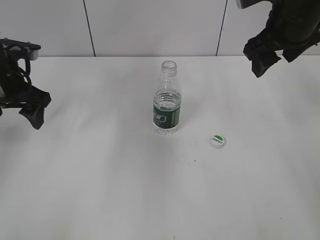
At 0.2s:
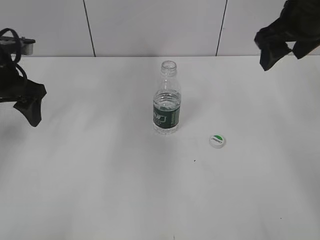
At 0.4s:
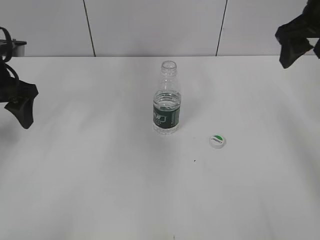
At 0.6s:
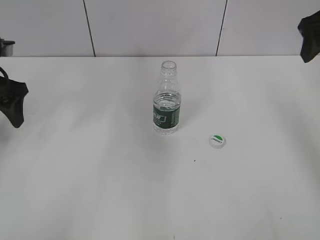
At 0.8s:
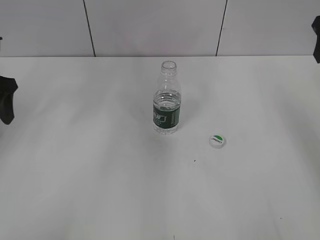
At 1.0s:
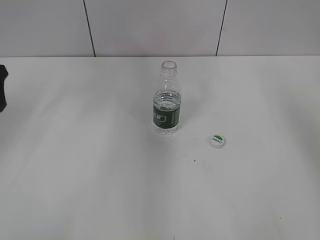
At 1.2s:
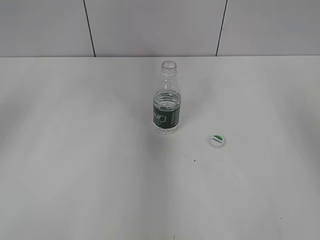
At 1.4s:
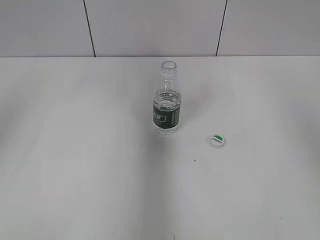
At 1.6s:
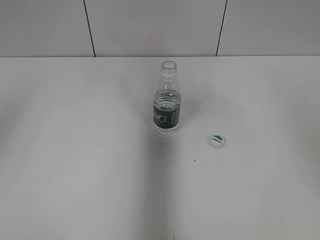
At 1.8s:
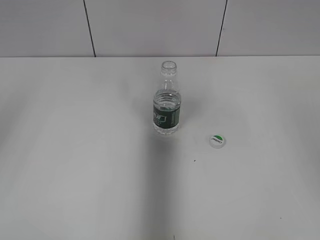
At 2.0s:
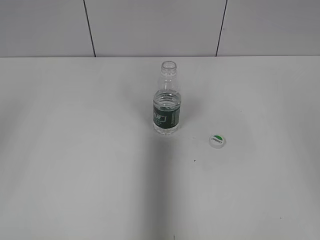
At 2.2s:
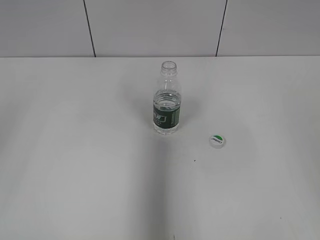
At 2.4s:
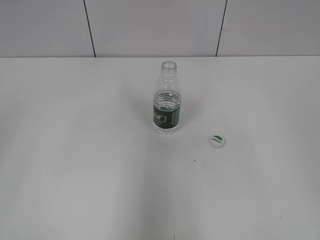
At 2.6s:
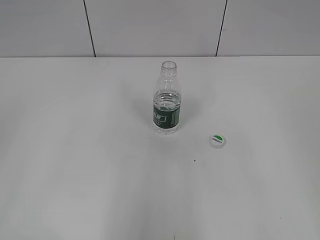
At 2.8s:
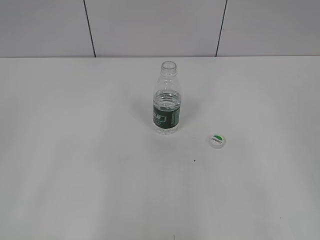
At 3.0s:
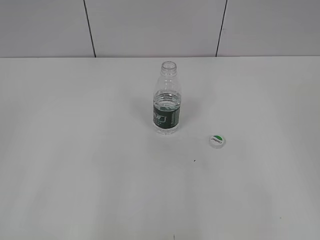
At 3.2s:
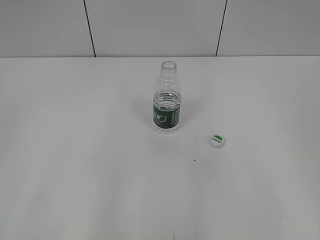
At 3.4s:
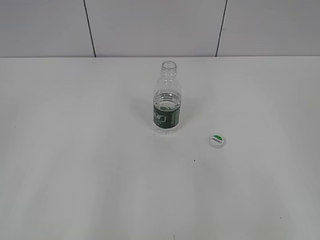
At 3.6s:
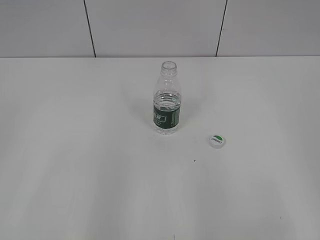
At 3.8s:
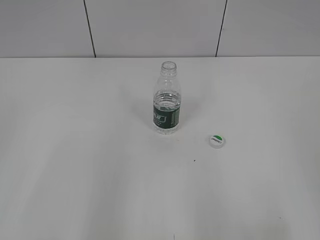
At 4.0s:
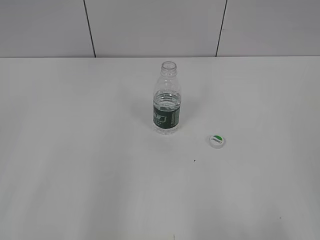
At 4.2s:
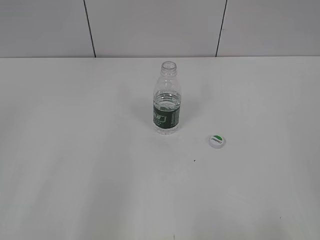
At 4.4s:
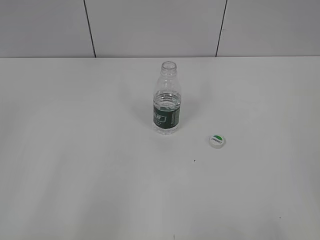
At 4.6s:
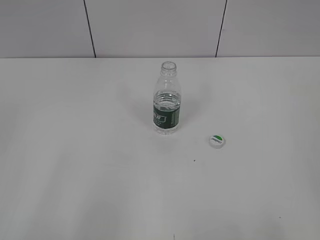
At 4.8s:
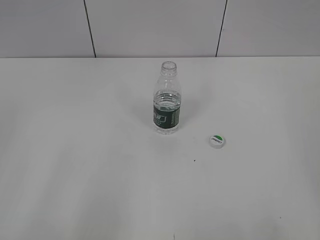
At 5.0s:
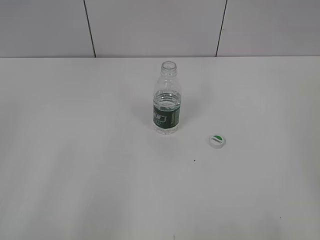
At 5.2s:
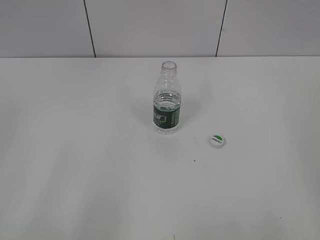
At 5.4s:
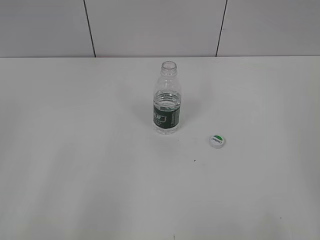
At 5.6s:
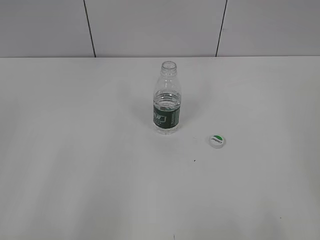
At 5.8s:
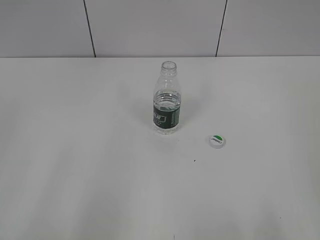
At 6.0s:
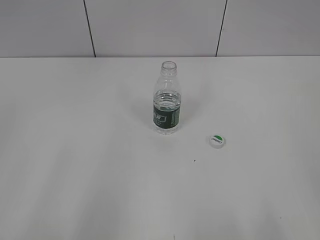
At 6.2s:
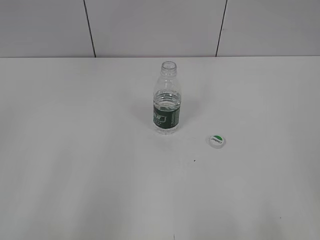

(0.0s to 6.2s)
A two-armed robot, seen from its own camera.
0.0s - 1.6s: The left gripper shifts about 20 cm upward and backward. The right gripper heads backward and to the right, covering about 15 cm.
1.6s - 3.2s: Both grippers travel together backward, some 20 cm.
4.6s - 6.2s: Both grippers stay about where they are.

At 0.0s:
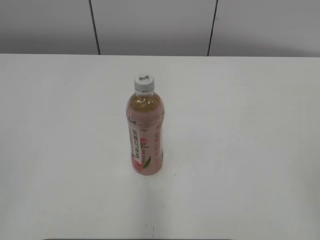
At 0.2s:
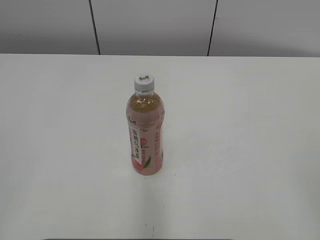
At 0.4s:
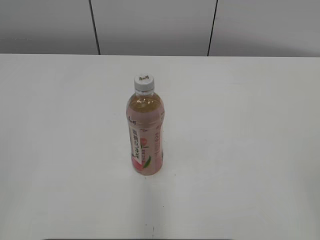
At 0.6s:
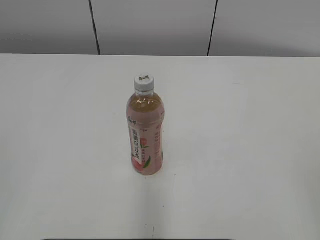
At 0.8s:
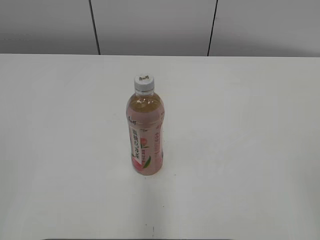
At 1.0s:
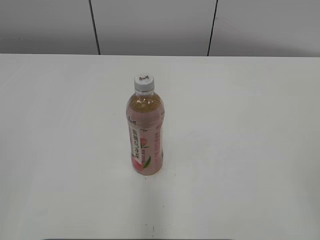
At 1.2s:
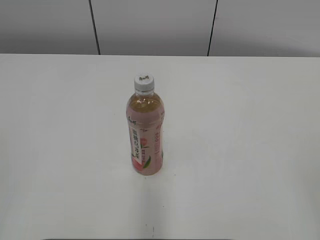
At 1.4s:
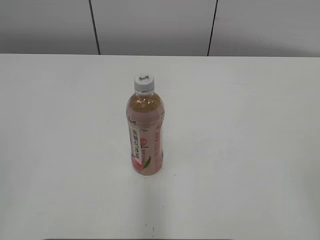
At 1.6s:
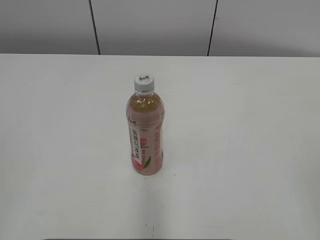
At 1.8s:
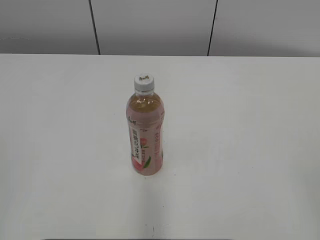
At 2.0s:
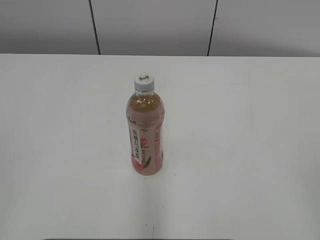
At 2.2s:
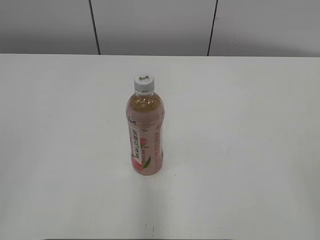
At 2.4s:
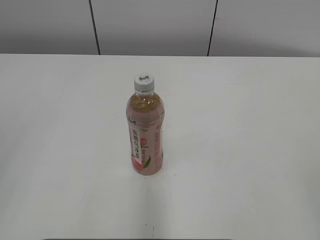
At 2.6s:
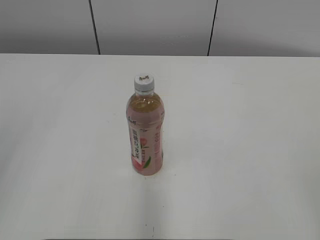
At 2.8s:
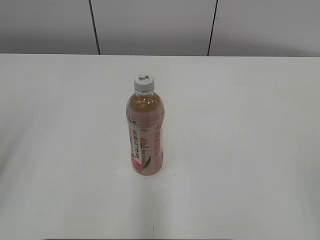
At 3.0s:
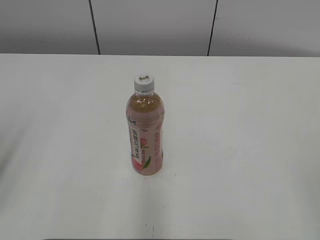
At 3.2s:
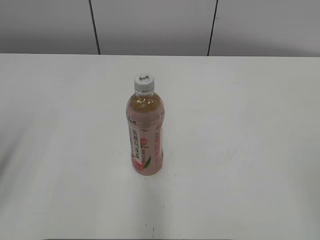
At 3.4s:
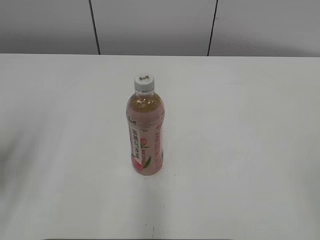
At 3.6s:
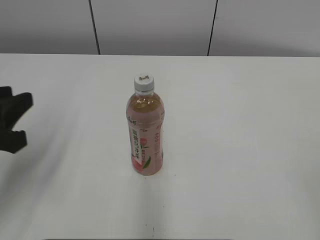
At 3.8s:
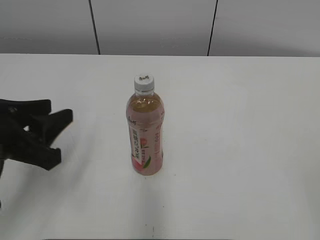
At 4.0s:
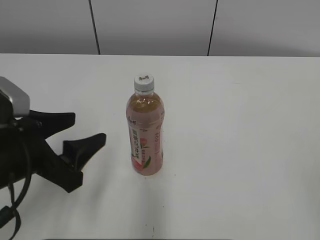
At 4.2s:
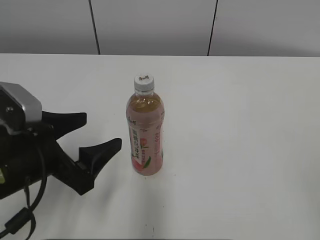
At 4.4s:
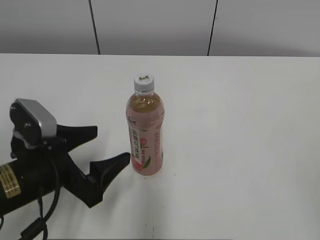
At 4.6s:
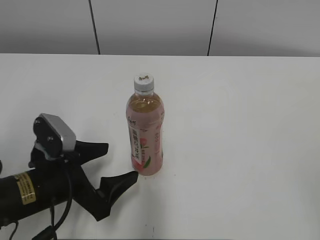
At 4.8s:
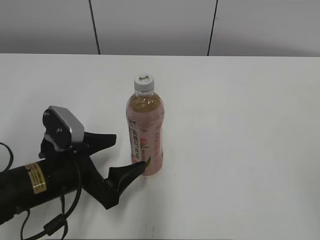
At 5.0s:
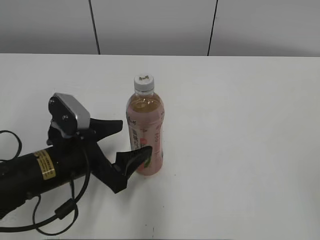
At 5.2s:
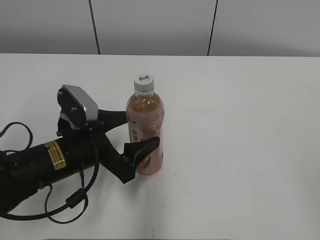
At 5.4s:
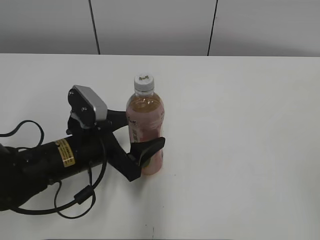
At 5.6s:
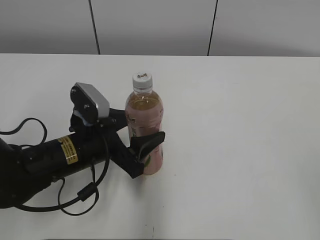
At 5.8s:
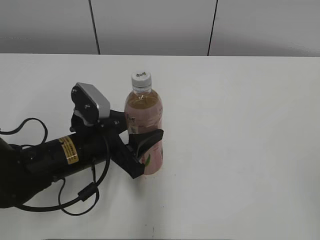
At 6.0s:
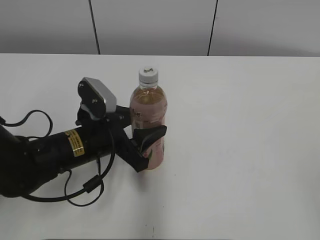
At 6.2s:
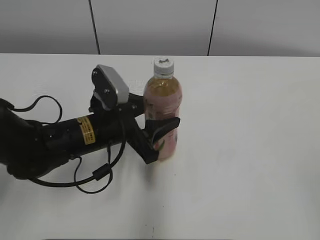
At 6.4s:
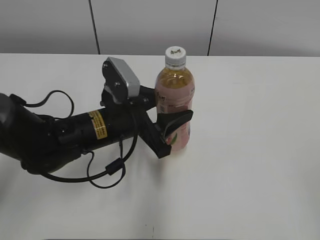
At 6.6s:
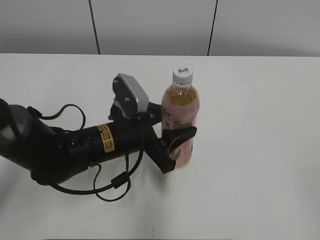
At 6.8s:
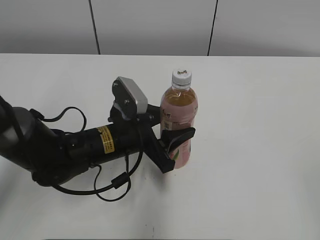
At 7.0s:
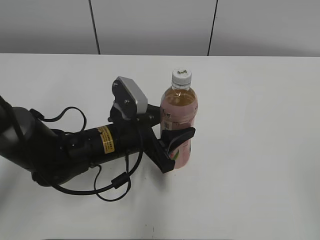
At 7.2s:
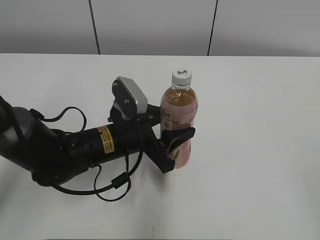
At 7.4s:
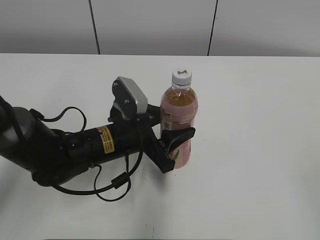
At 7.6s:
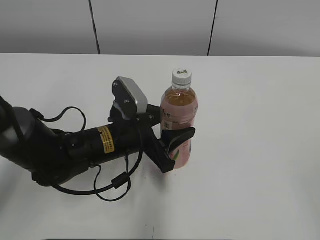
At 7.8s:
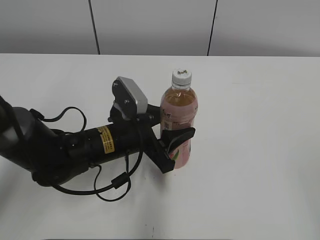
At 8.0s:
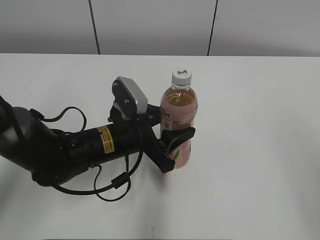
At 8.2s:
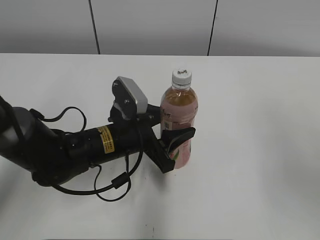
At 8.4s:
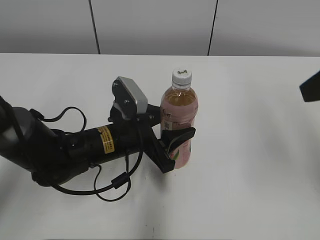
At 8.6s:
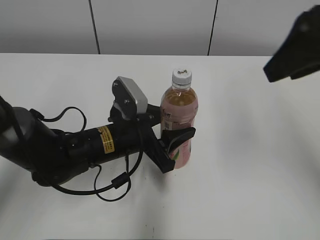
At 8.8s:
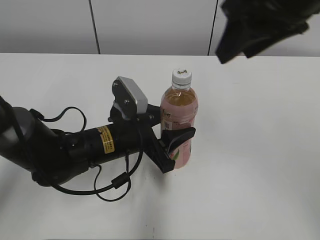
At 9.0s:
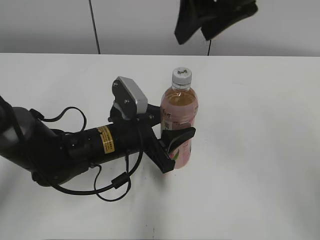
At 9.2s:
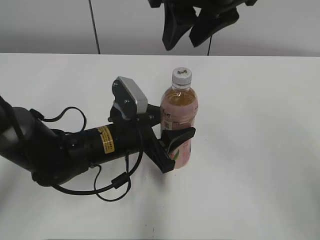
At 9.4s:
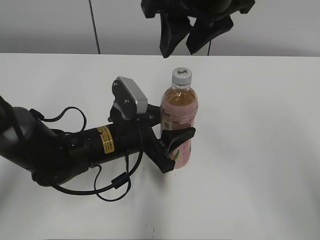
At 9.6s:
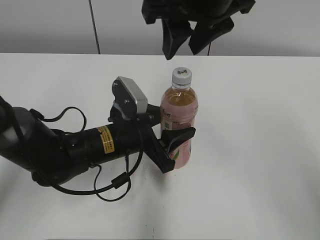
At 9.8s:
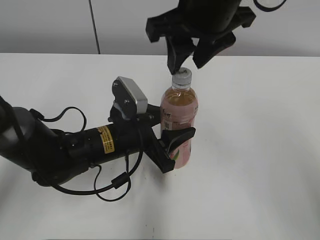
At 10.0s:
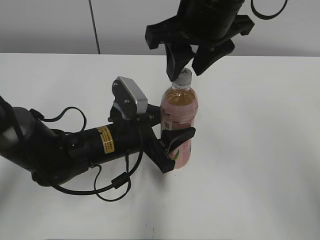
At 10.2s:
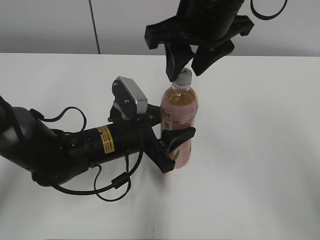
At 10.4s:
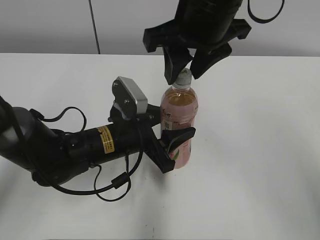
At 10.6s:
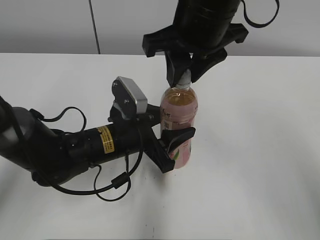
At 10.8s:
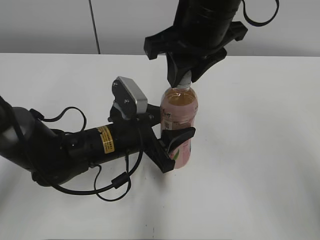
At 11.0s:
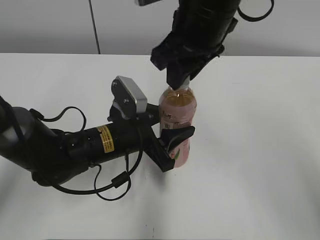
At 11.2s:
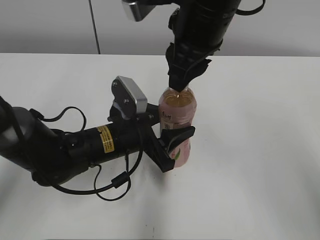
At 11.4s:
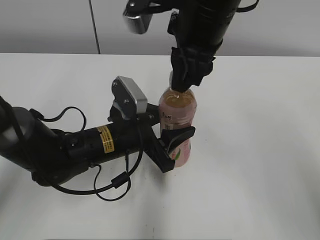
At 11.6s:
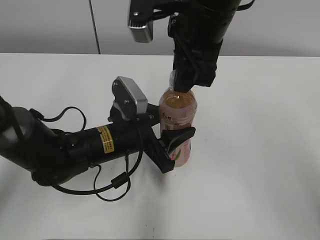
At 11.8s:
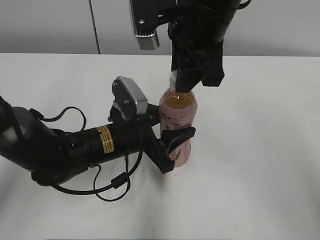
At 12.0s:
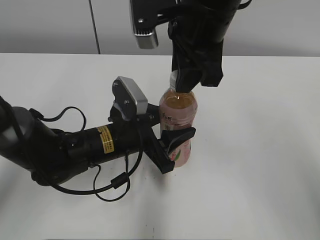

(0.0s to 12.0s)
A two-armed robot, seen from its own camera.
Step, 0.0s - 5.6s: Grab the Peach Oolong Tea with the left hand.
Step, 5.8s - 6.8s: Move the Peach Oolong Tea from left to right.
3.0s - 4.4s: The left gripper is displaced downward, to the right and forward by approximately 20 cm, and opens up.
4.4s - 6.0s: The left gripper travels forward and to the right by some 10 cm, and closes its fingers.
6.0s - 7.6s: The grippers make only small movements.
7.6s - 9.0s: The right gripper heads forward and to the left, covering roughly 35 cm, and closes up.
9.0s - 10.4s: The right gripper travels downward by approximately 5 cm.
10.4s - 12.0s: The right gripper closes its fingers.

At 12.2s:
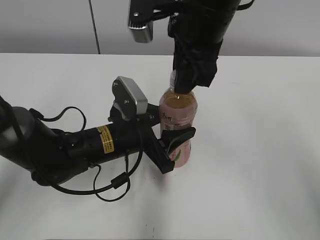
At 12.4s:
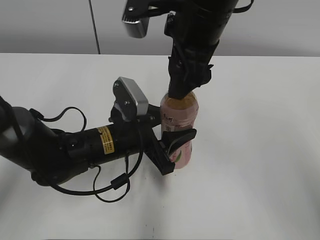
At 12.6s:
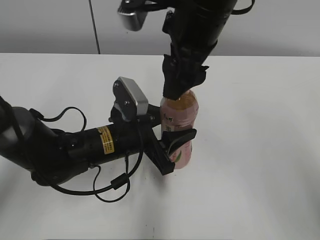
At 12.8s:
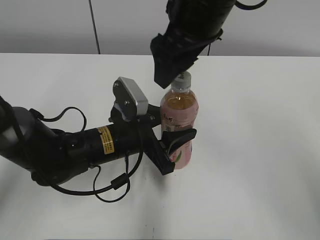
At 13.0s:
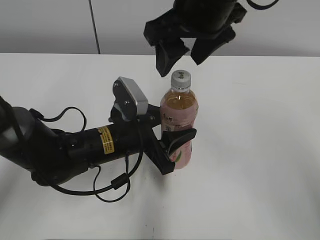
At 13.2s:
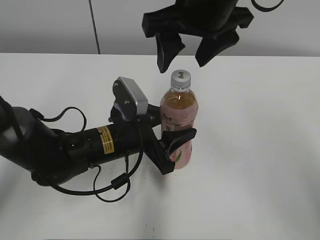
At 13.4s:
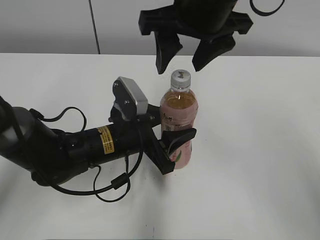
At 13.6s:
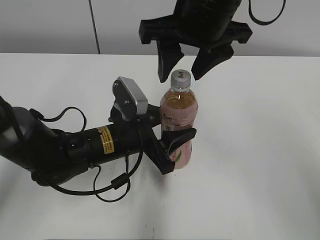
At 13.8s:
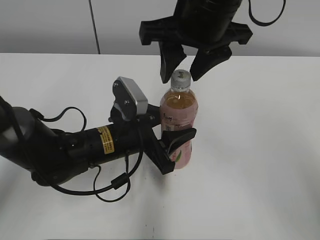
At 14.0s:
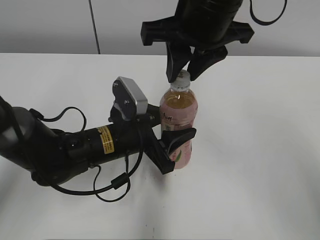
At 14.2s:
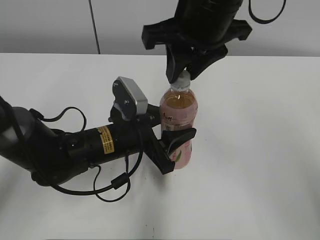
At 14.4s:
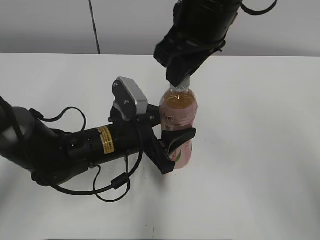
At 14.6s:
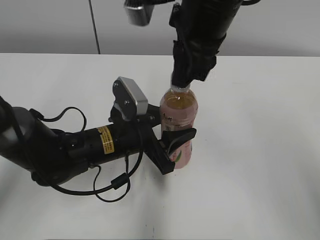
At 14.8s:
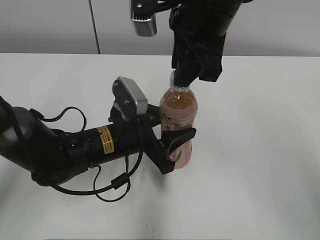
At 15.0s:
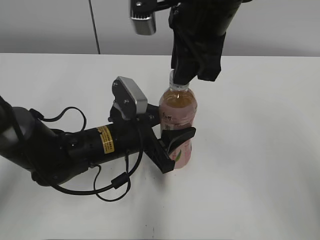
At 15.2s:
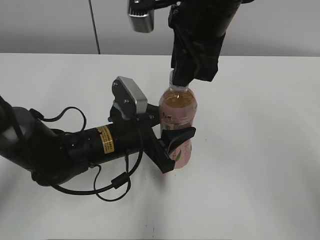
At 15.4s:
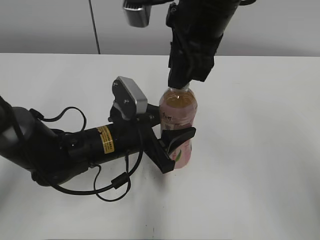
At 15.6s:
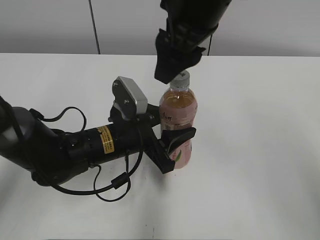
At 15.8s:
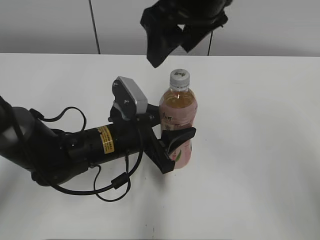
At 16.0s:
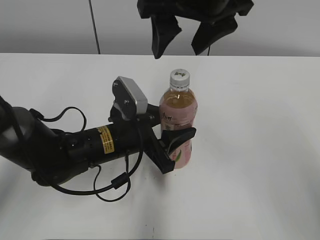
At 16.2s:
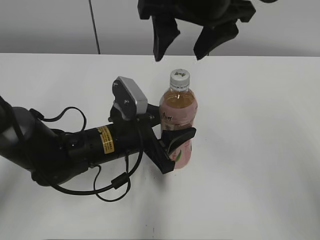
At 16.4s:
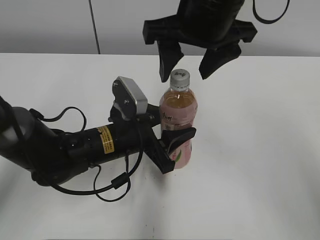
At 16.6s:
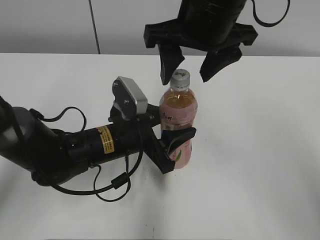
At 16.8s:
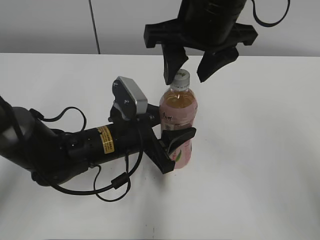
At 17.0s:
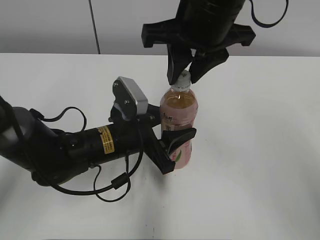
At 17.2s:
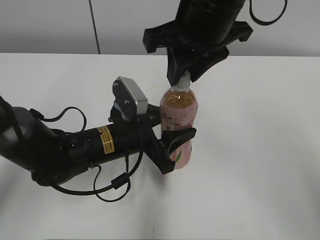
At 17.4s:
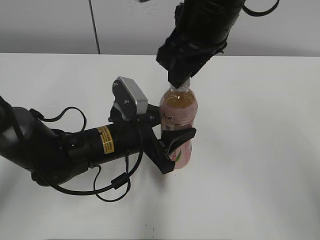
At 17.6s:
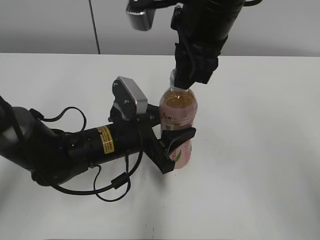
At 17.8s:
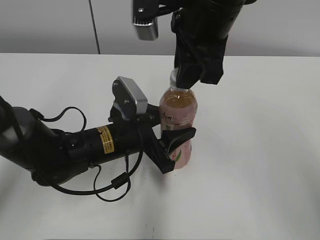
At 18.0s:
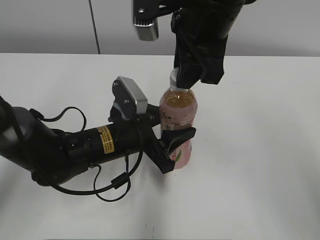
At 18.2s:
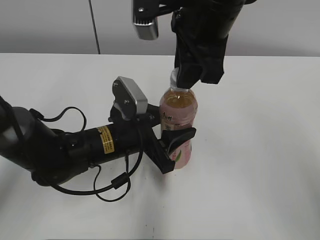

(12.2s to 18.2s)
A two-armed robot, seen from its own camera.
12.2s - 13.8s: The right gripper opens, then closes once more.
13.8s - 15.2s: The right gripper closes up.
15.2s - 16.6s: The right gripper opens.
16.6s - 18.2s: The right gripper closes up.
